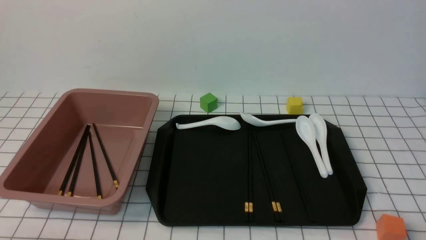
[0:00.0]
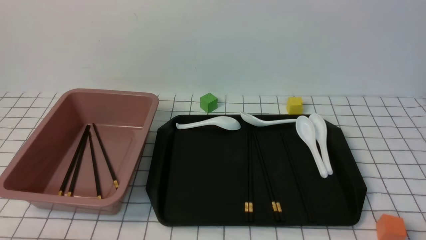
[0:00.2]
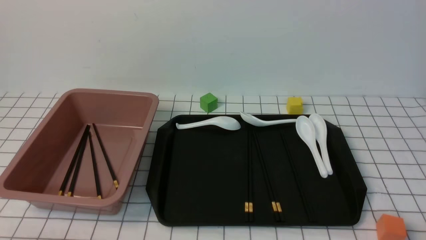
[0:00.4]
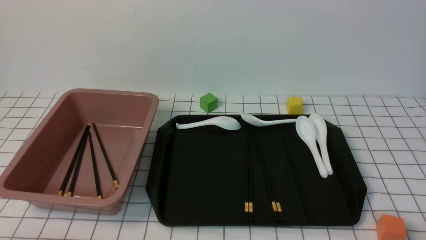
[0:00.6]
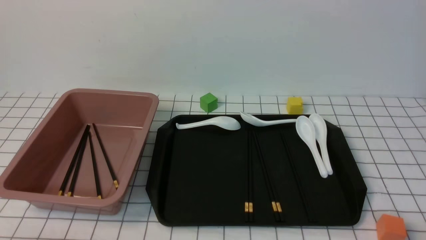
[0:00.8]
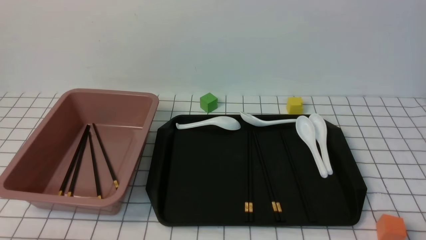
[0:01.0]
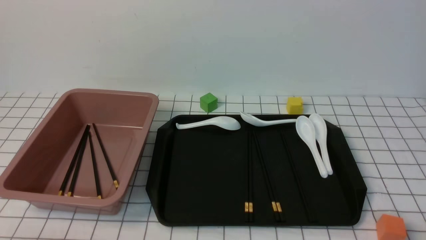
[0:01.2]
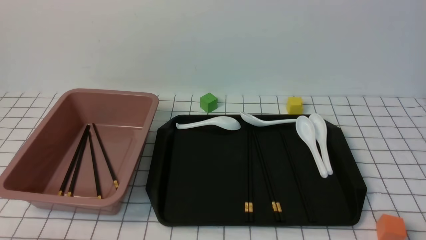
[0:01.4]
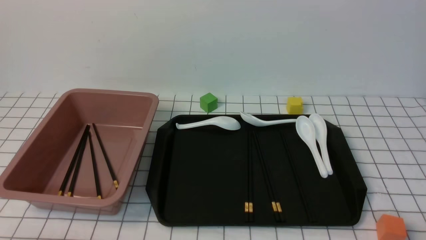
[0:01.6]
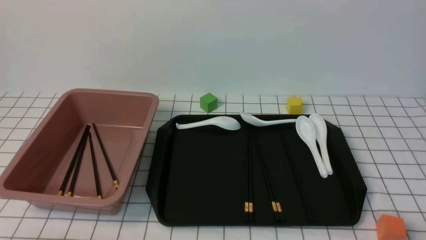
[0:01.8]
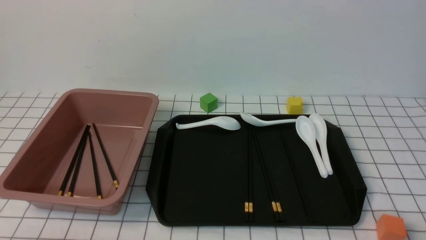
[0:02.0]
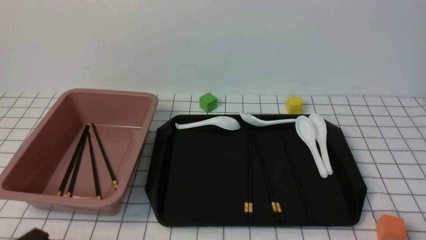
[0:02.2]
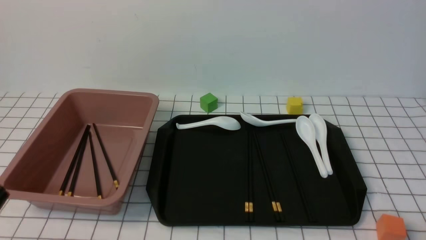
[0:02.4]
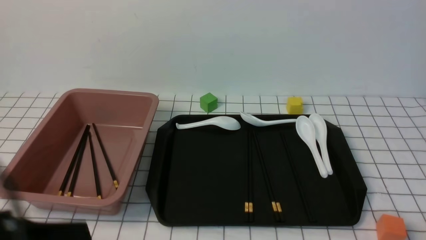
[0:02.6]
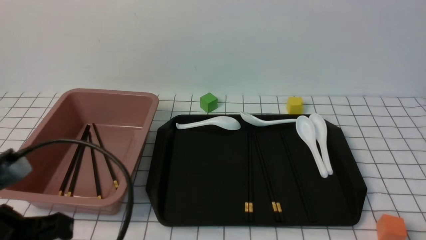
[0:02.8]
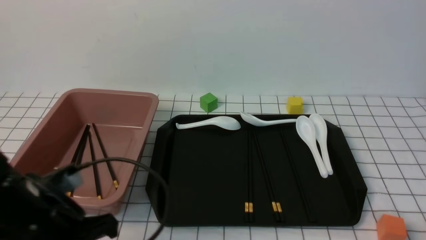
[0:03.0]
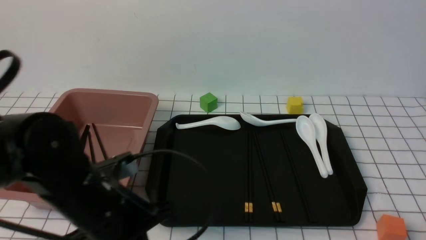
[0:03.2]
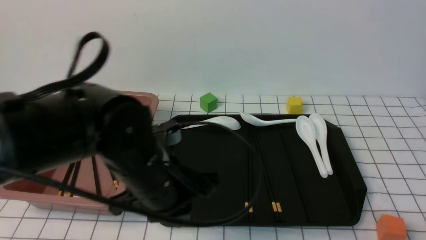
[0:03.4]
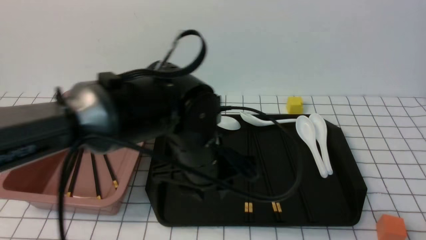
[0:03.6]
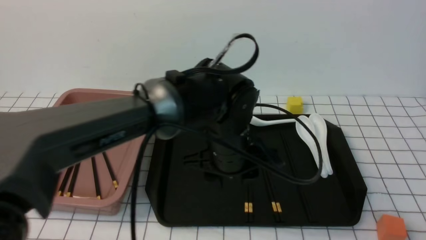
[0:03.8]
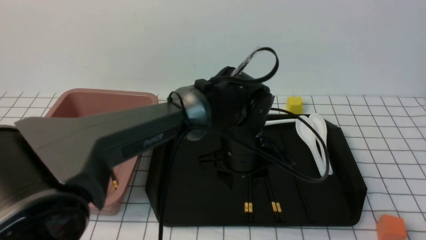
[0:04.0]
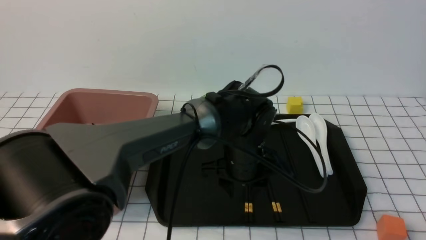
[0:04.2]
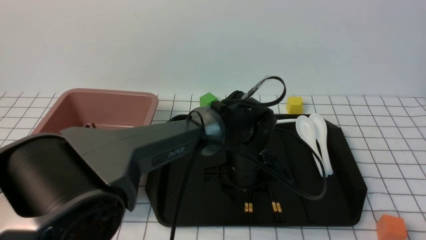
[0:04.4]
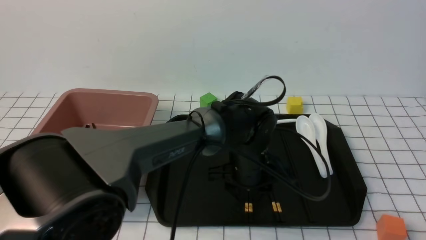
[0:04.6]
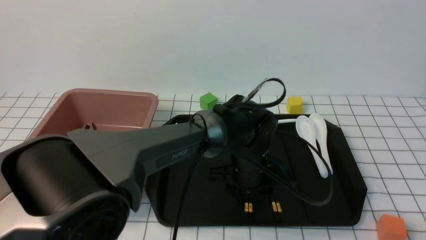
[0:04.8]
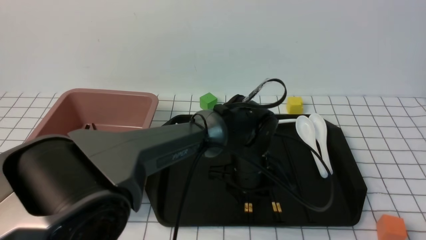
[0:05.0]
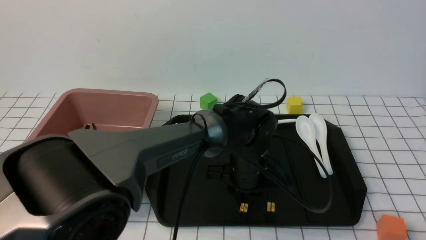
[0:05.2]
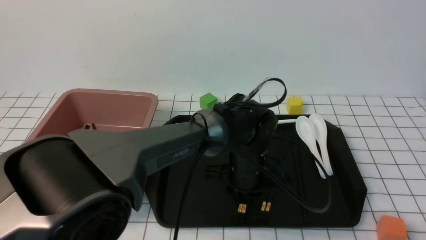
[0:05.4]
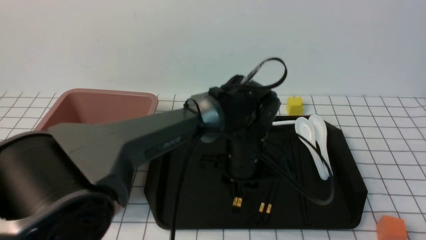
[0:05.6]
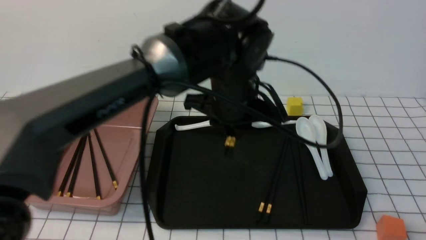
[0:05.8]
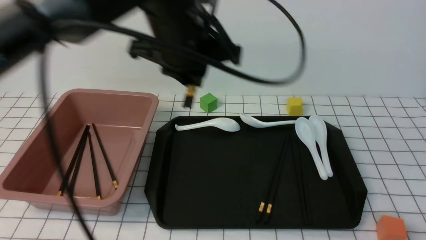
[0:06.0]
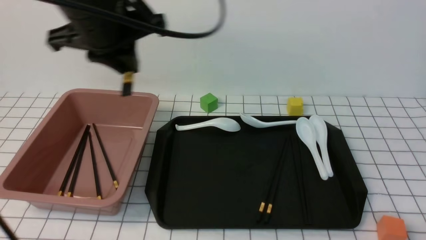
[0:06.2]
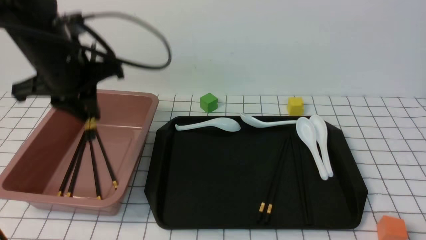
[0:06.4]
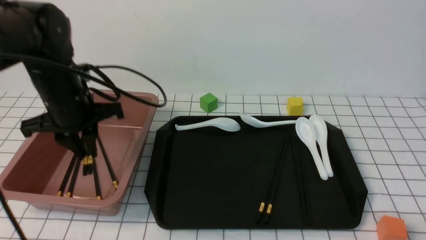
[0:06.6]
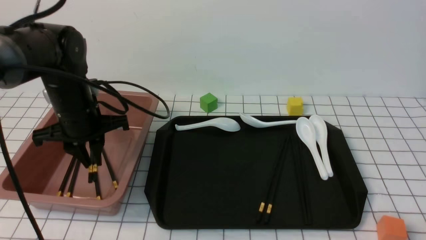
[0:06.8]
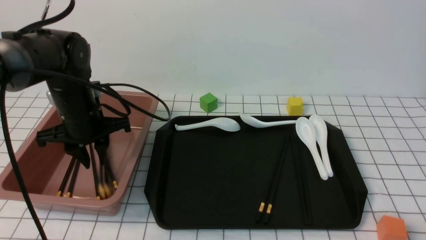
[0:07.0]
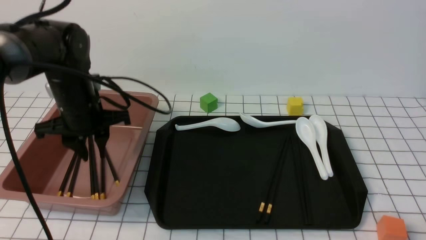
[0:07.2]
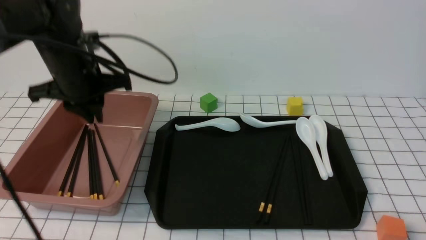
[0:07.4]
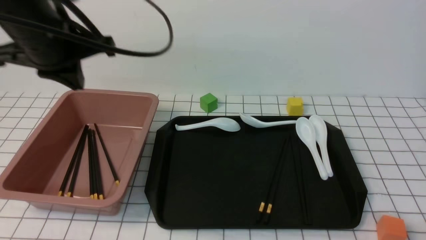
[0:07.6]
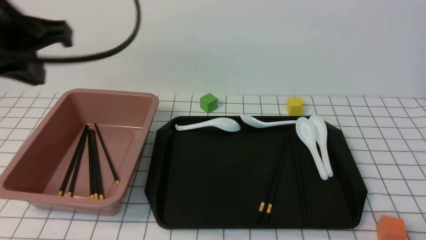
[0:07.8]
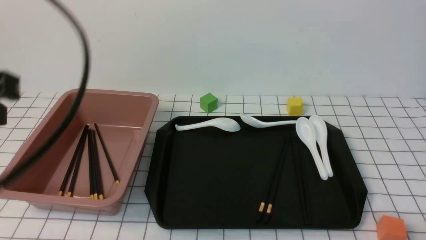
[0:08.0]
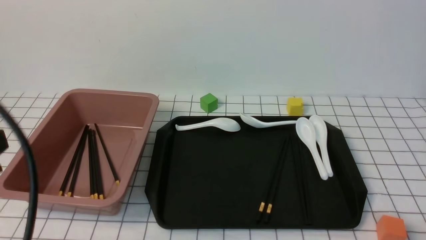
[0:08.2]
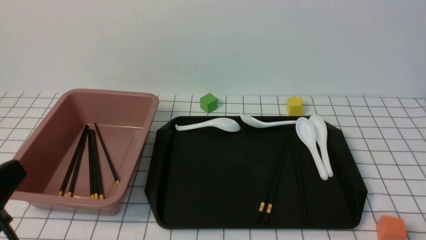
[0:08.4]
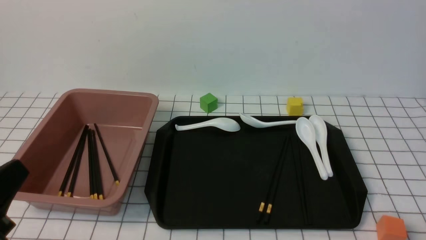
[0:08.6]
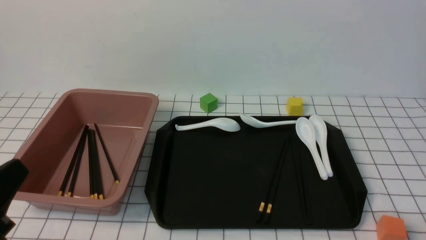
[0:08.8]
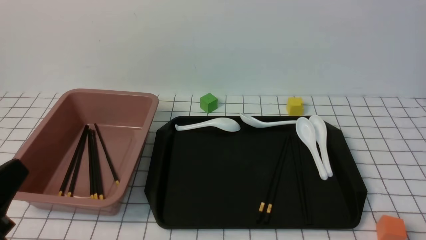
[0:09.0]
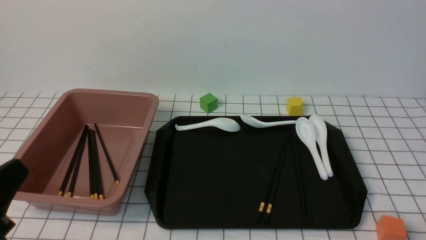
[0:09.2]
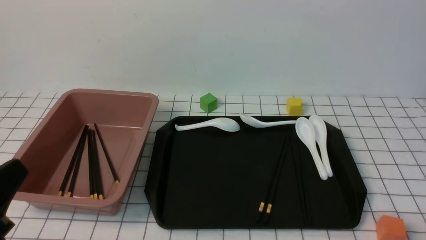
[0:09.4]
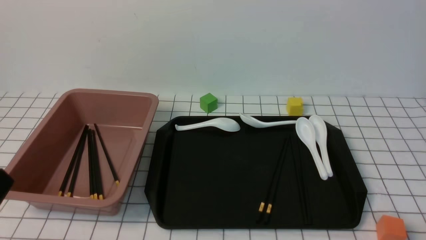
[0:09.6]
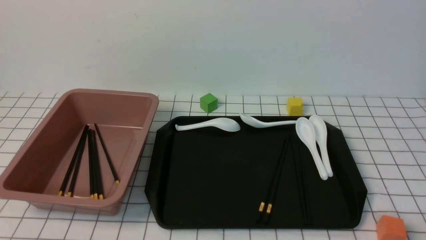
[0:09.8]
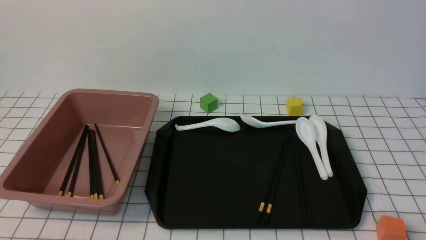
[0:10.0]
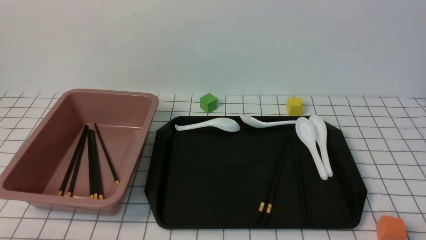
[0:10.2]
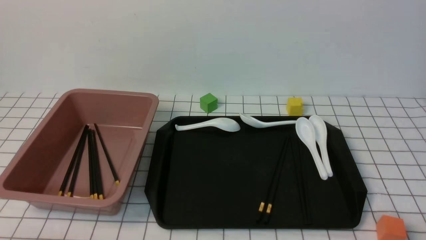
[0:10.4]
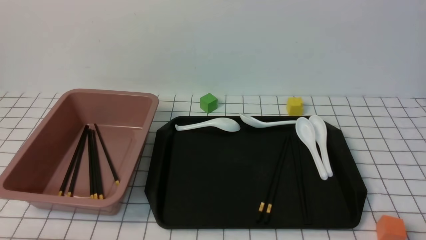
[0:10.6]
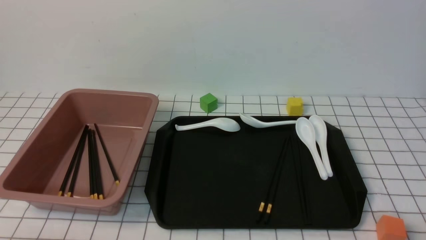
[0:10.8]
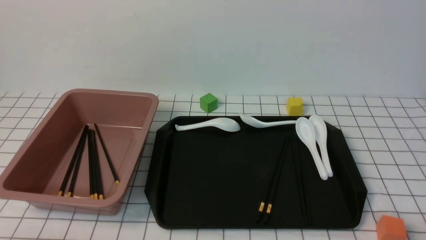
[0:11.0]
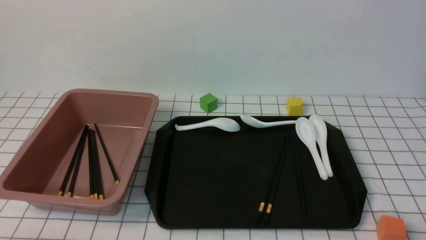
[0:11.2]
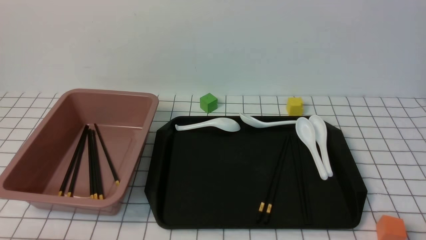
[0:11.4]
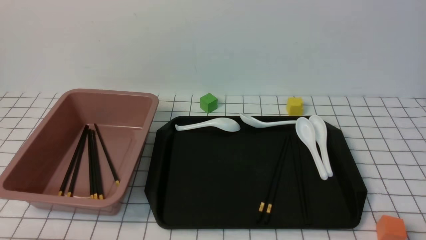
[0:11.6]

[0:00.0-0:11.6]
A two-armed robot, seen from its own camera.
Step, 0:00.0 to 0:05.4: use the left arm to grab a pair of chopsticks.
Step, 0:05.6 to 0:07.2: use the left arm to put the chopsticks into the lunch box.
0:01.4 to 0:02.8: The left gripper is displaced upward and forward by about 15 cm.
0:02.8 to 0:04.4: The left gripper goes roughly 35 cm to the right, forward and downward, and opens.
0:04.4 to 0:05.8: The left gripper is displaced upward by about 10 cm, and closes.
0:05.8 to 0:07.2: The left gripper heads to the left, covering approximately 25 cm.
0:07.2 to 0:08.8: The left gripper moves backward, approximately 30 cm, and closes.
0:08.8 to 0:10.2: The left gripper is displaced downward by some 5 cm.
